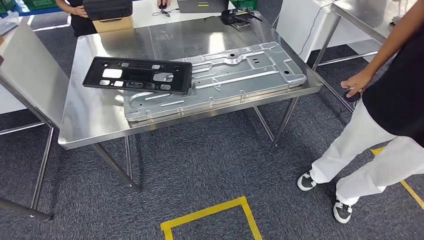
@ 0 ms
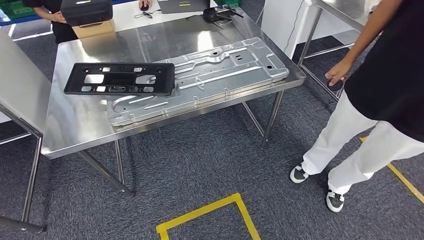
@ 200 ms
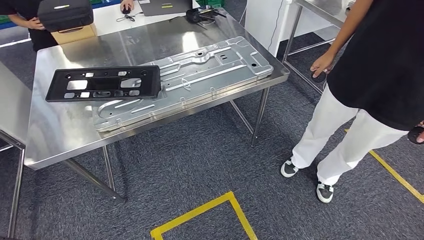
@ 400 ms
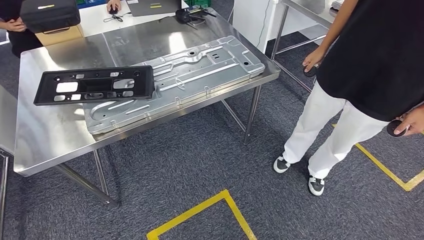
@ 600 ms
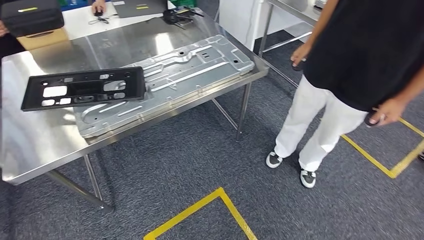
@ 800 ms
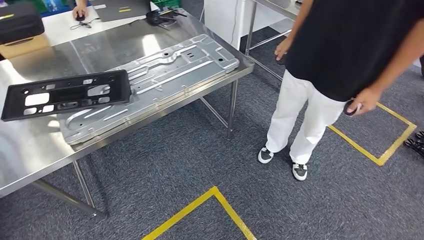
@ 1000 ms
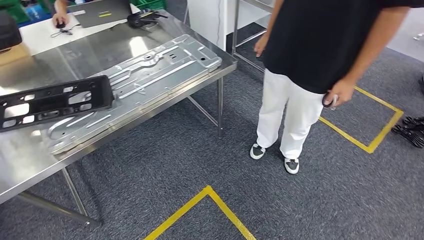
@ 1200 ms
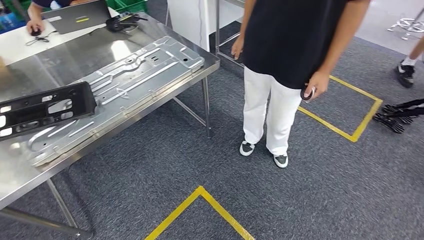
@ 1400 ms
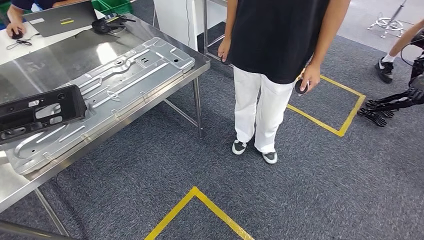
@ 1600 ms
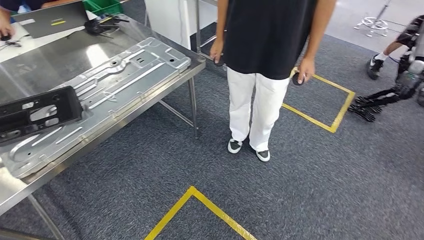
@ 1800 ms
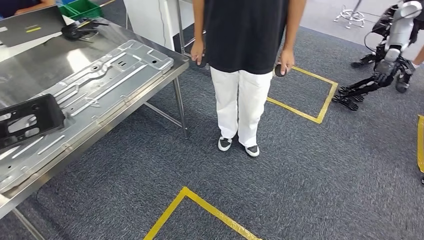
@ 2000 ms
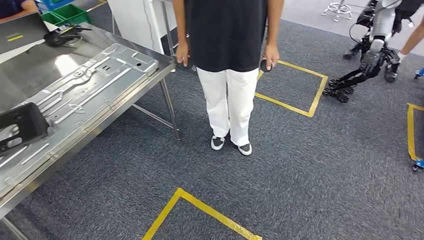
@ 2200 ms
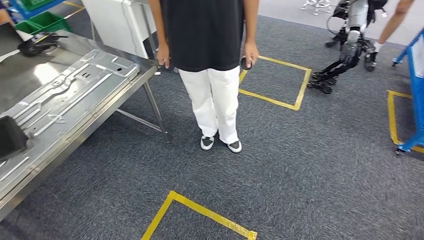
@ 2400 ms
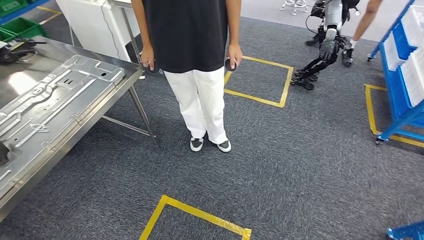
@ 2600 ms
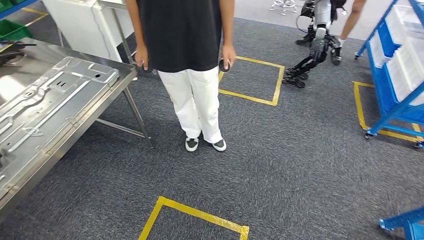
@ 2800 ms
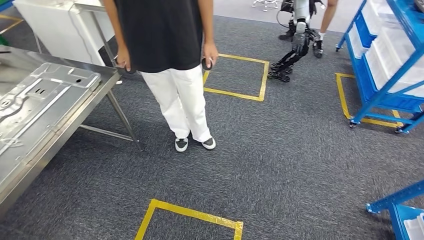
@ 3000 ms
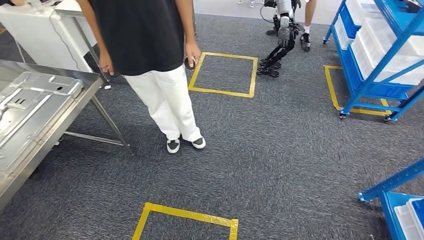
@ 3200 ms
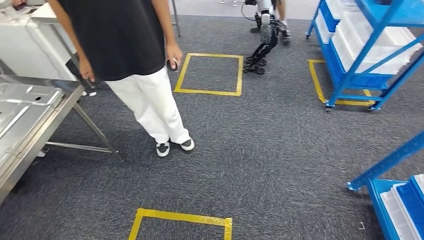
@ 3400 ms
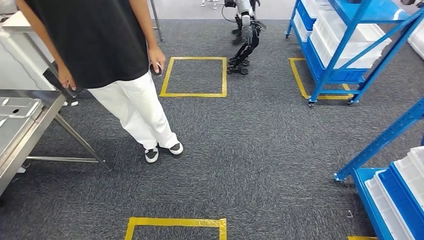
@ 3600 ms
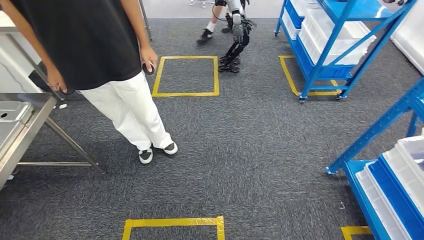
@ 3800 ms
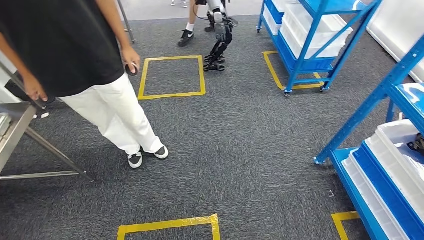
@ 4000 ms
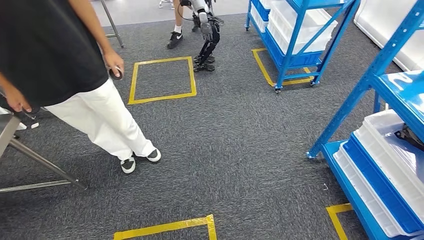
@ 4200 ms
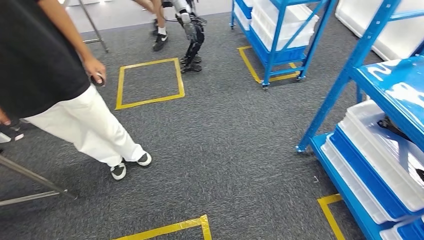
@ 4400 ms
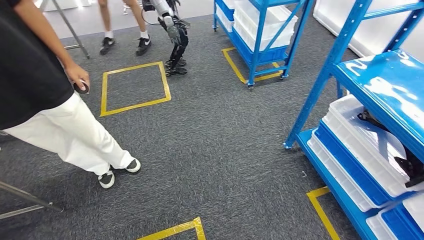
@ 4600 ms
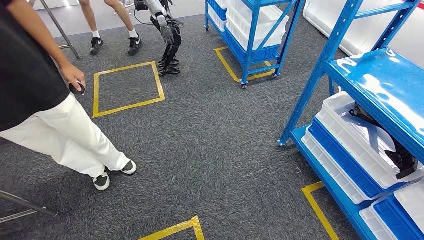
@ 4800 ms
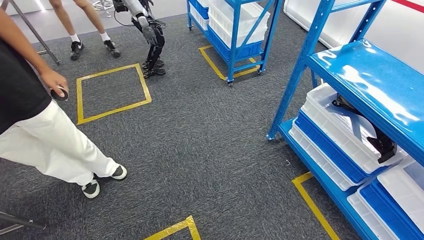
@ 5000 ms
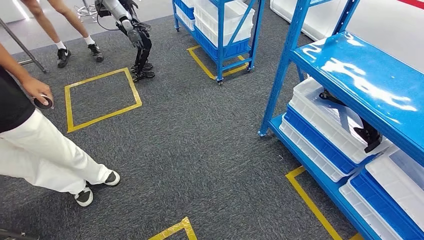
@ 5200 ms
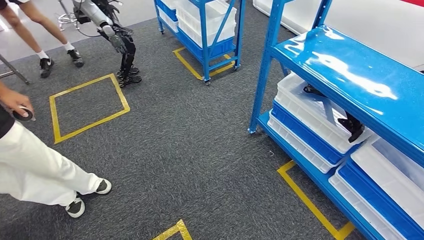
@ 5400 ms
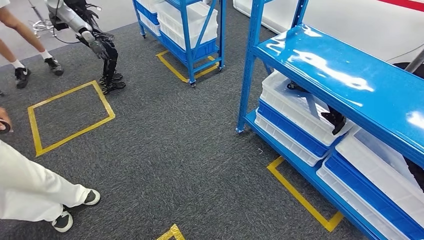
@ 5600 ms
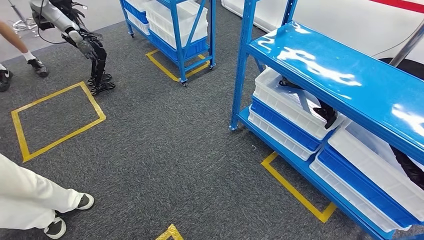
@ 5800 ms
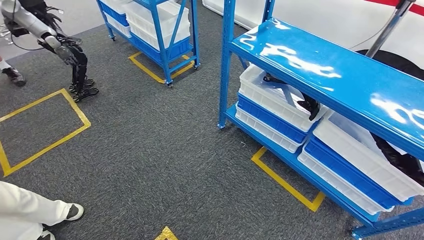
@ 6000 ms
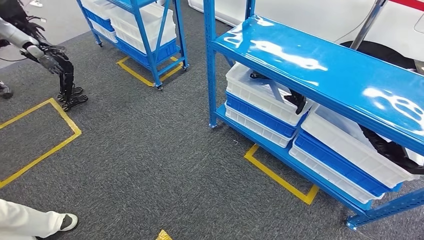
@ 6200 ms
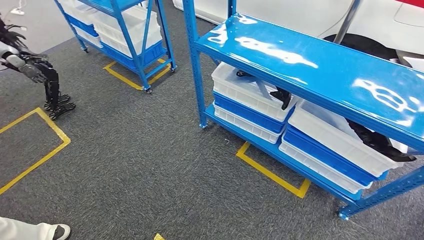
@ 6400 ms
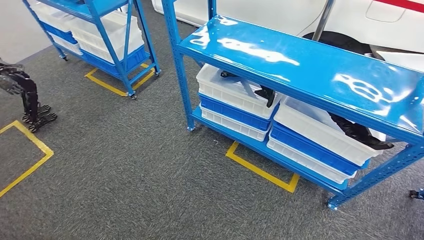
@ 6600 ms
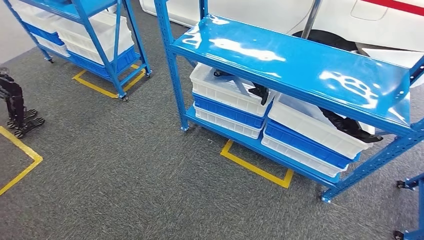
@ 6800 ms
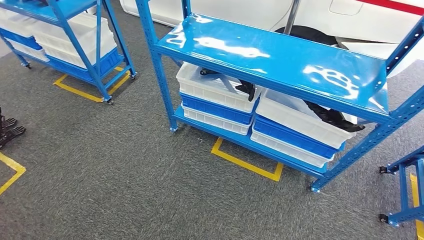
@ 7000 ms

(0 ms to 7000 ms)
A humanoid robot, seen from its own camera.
Step, 0 ms - 7000 ms: Move to the initial position of the shelf.

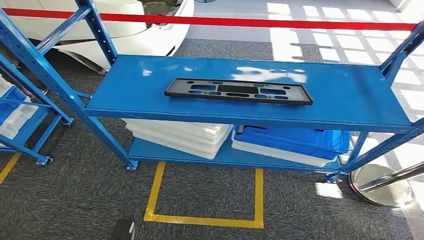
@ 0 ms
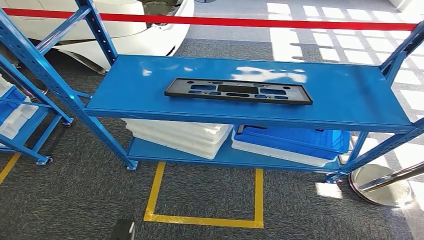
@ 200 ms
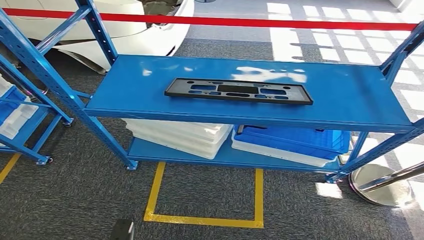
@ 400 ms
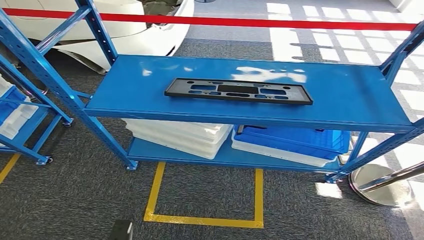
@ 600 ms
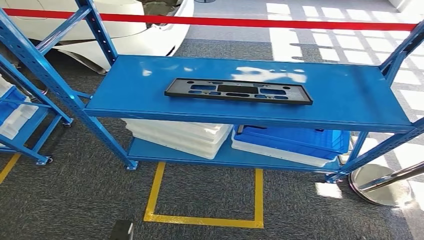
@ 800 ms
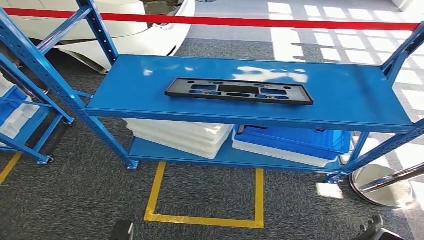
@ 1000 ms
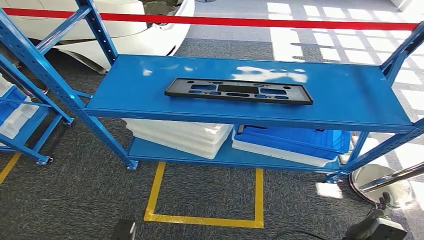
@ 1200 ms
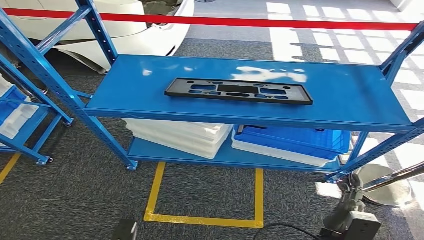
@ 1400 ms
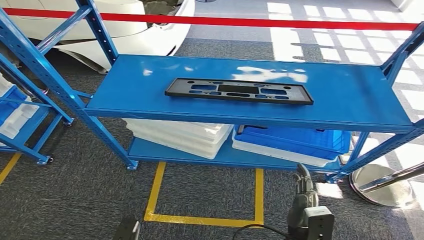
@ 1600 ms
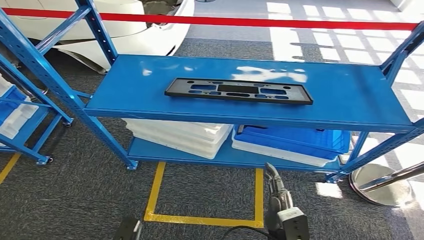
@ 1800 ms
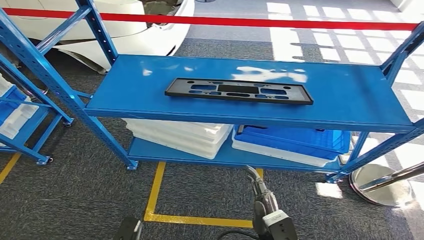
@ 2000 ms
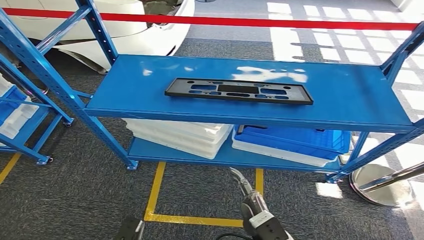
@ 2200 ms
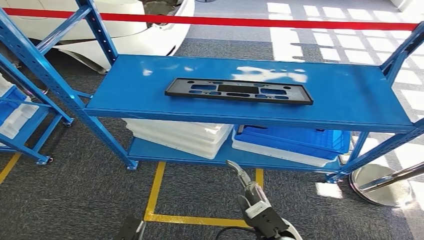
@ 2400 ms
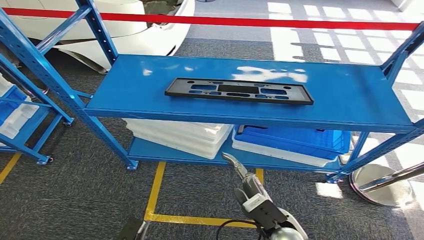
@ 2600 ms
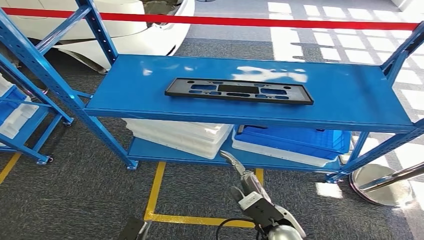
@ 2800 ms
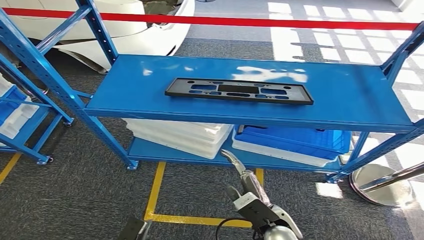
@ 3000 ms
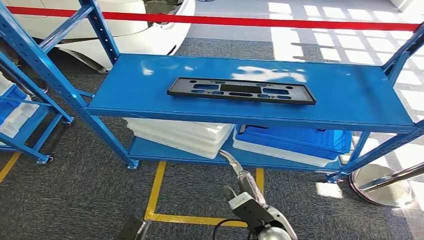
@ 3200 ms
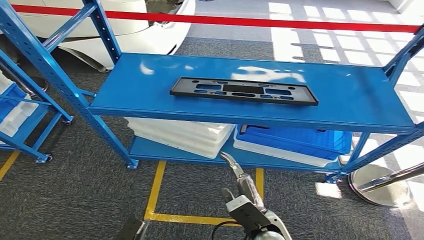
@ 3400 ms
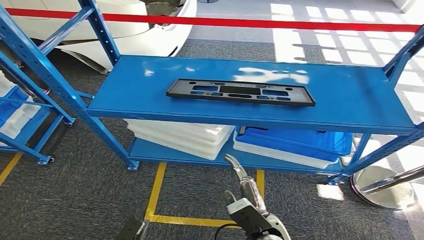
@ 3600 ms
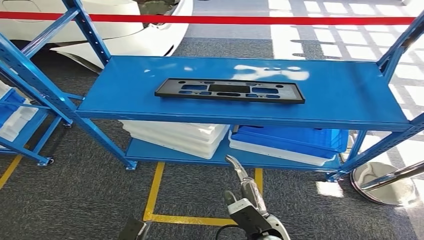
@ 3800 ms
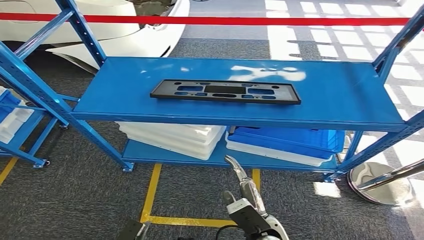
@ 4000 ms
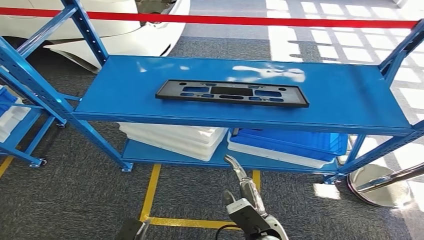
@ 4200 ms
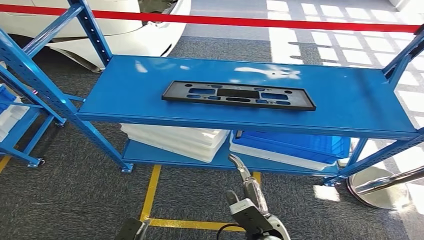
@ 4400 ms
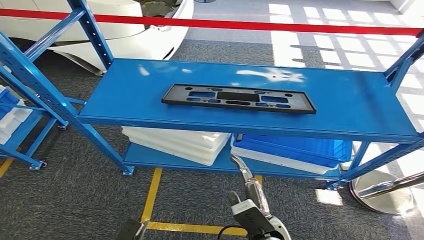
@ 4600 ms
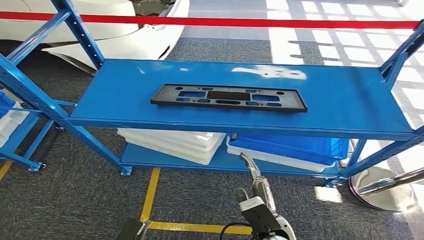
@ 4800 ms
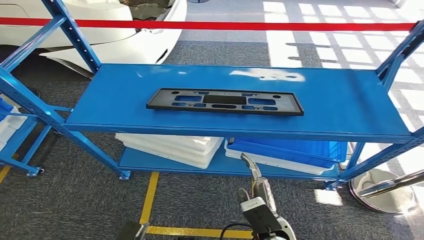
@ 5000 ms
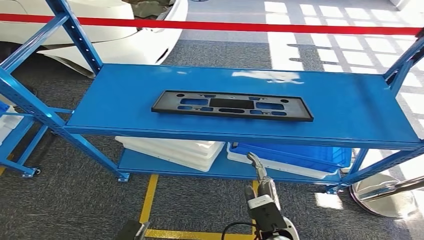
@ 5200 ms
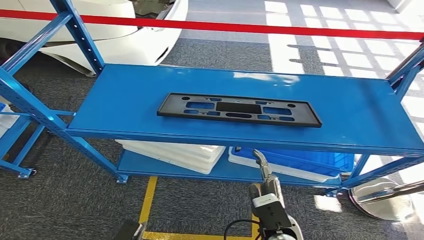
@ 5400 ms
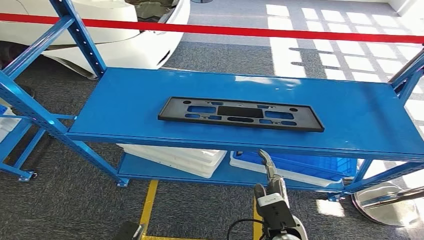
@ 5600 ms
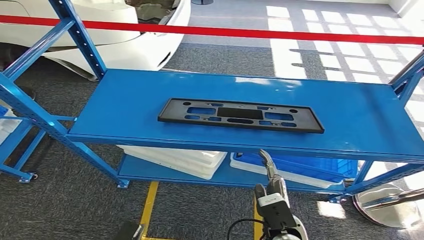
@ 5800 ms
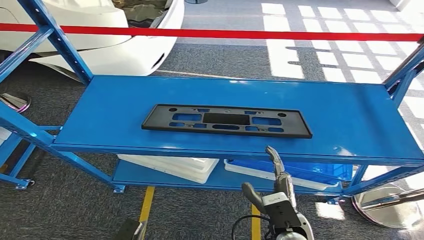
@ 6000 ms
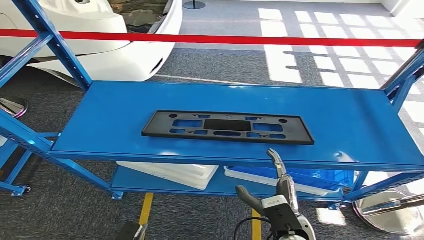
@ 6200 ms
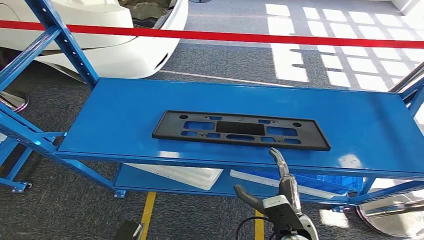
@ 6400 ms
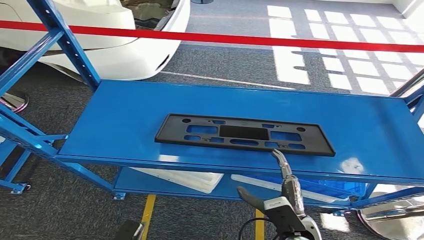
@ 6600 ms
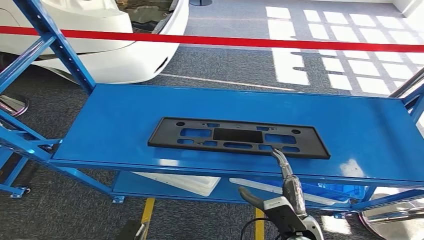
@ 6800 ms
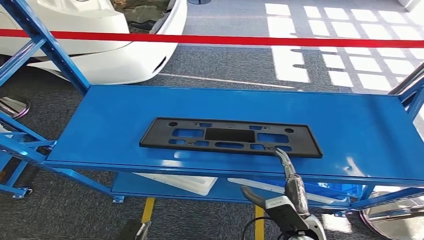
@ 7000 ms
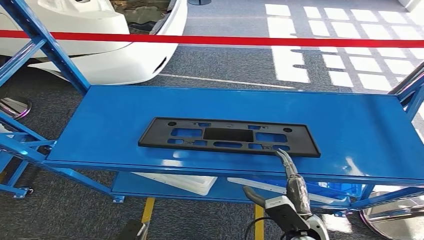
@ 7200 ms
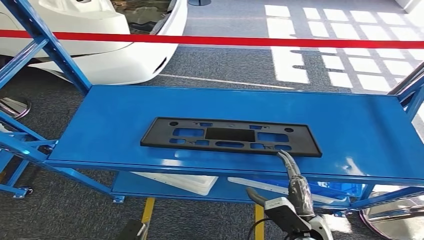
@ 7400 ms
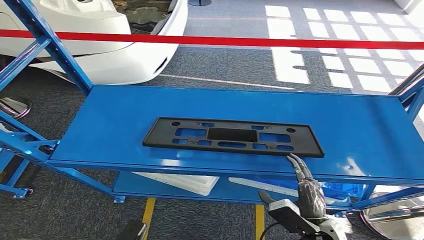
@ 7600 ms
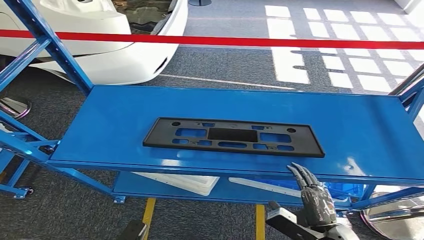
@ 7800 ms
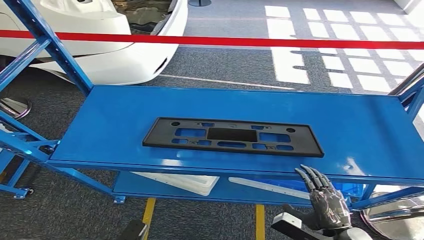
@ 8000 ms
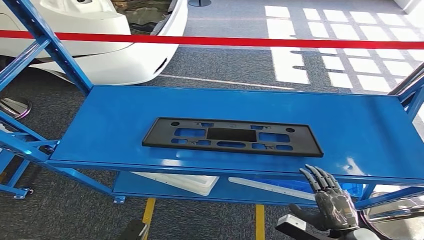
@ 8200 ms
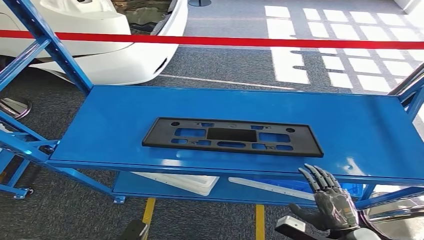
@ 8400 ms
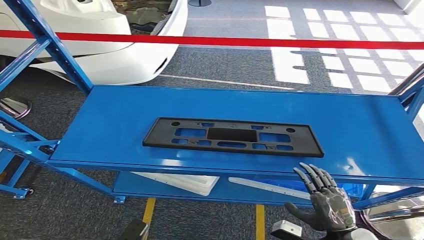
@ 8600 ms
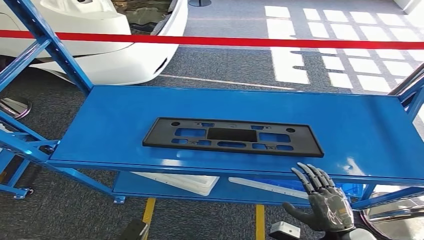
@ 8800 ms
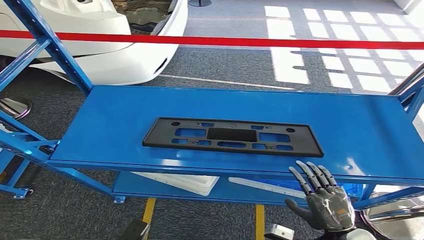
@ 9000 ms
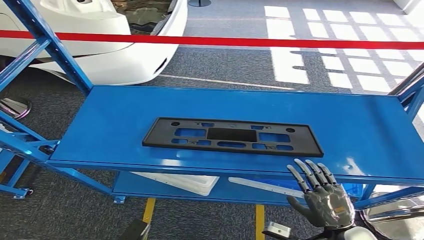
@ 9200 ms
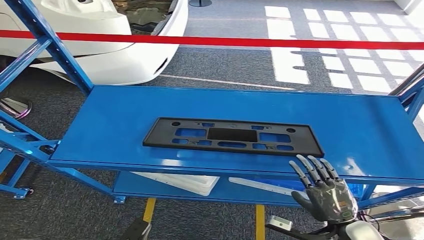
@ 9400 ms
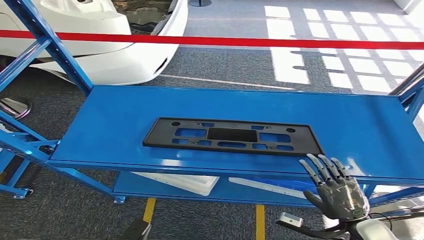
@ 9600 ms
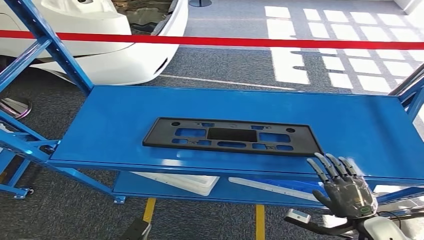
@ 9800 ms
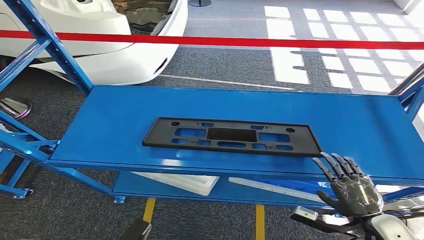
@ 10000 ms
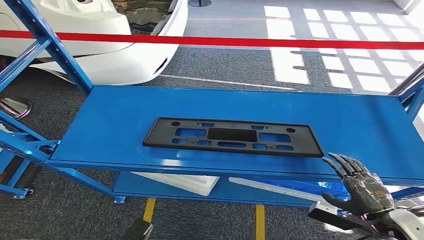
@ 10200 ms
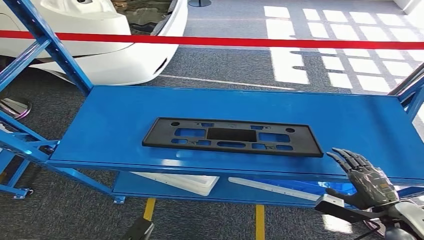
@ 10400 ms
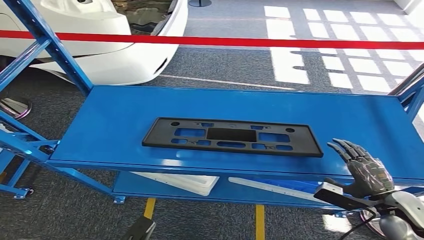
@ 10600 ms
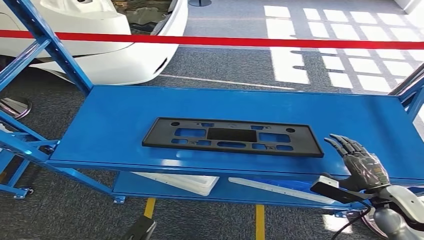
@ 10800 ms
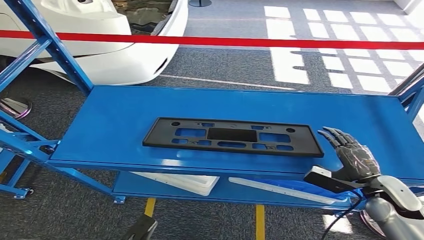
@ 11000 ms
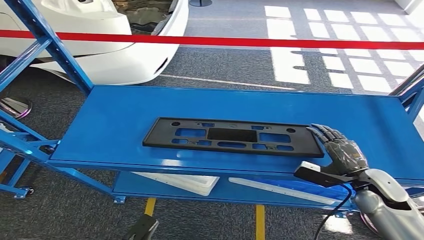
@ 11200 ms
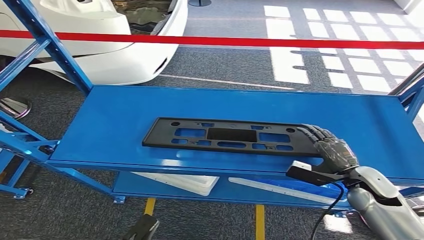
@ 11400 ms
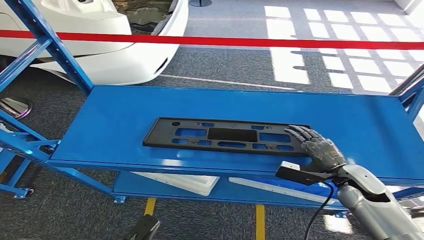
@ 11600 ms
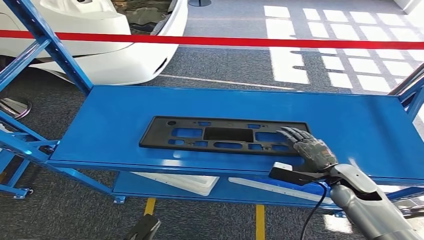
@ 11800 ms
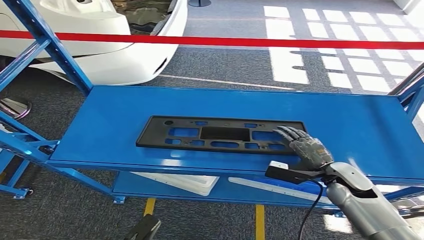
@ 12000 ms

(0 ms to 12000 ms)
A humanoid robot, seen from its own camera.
1600 ms - 3000 ms: The right hand heads to the left and upward, covering about 10 cm.
7600 ms - 9000 ms: The right hand goes roughly 5 cm to the right.
9000 ms - 10400 ms: The right hand moves to the right and forward, about 10 cm.
10400 ms - 12000 ms: The right hand travels to the left and forward by some 15 cm.
